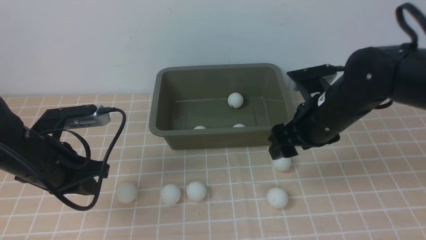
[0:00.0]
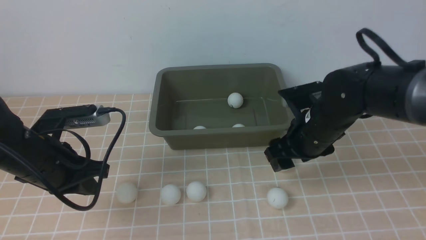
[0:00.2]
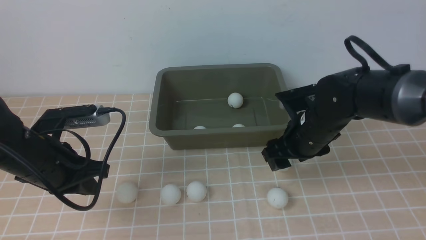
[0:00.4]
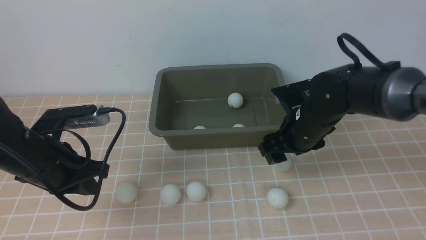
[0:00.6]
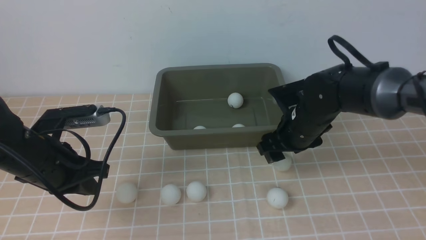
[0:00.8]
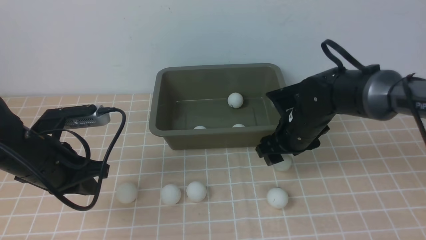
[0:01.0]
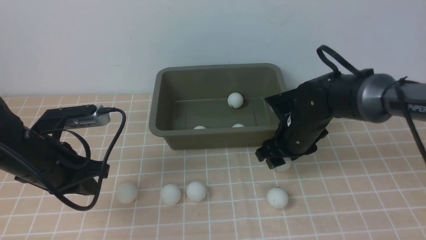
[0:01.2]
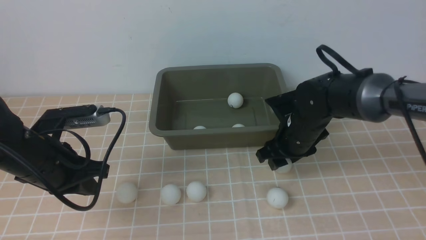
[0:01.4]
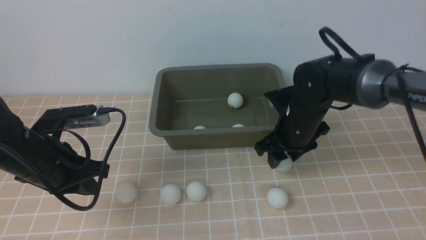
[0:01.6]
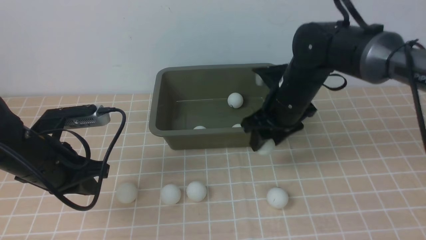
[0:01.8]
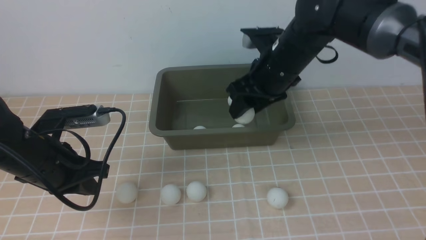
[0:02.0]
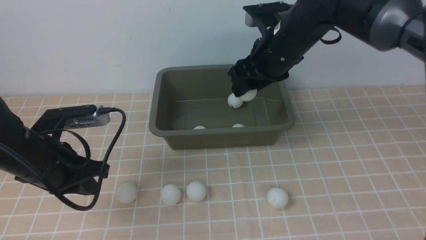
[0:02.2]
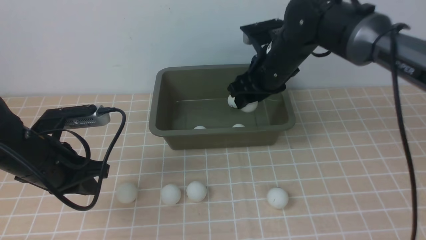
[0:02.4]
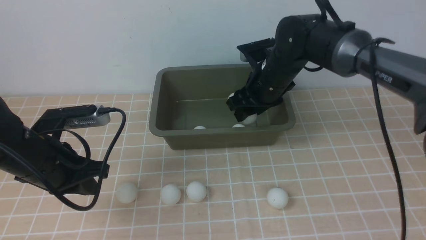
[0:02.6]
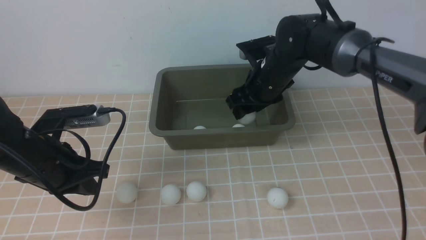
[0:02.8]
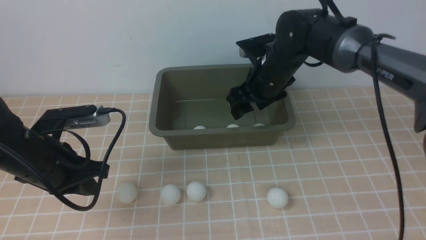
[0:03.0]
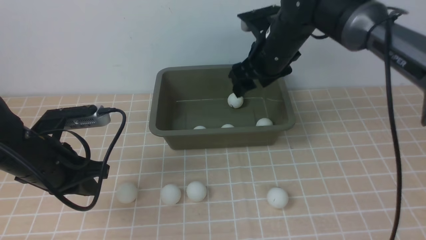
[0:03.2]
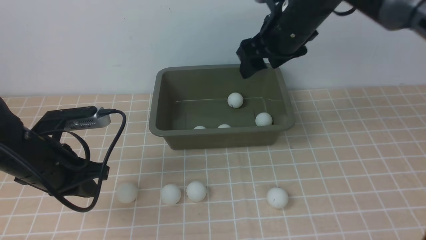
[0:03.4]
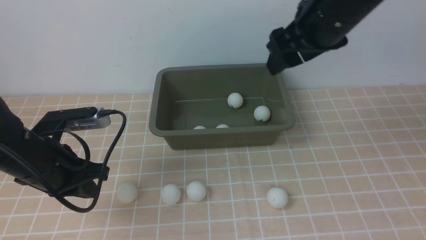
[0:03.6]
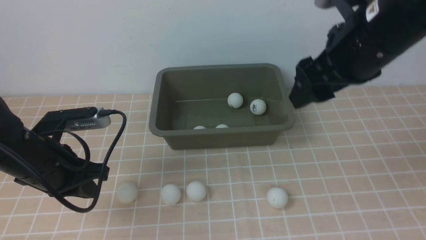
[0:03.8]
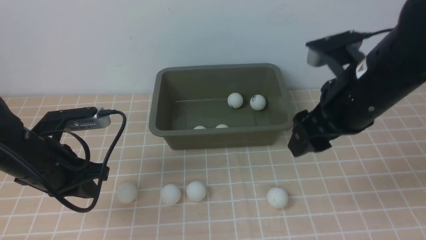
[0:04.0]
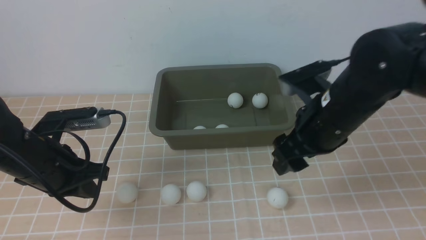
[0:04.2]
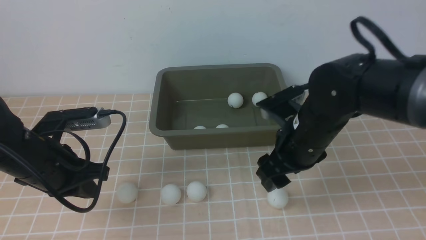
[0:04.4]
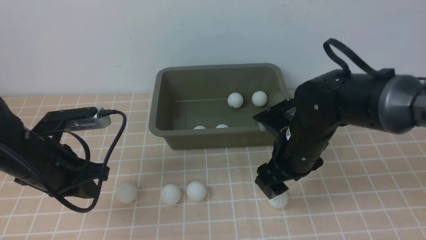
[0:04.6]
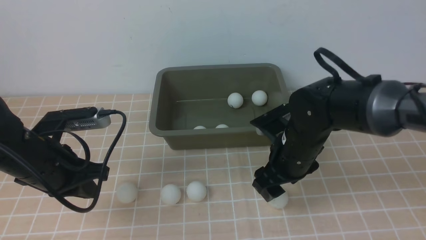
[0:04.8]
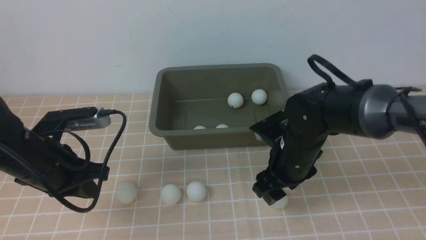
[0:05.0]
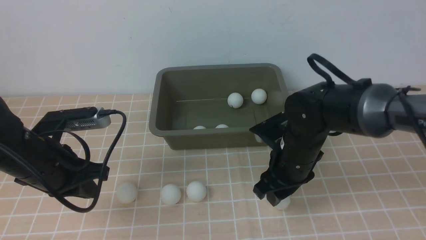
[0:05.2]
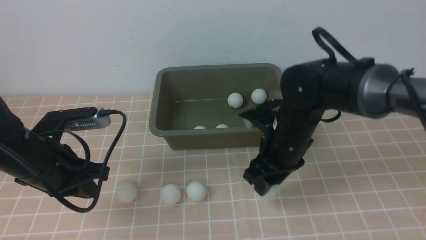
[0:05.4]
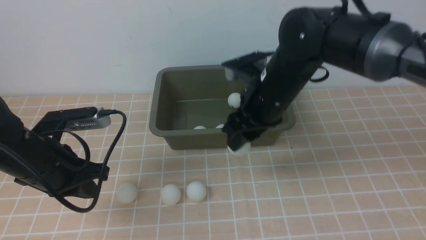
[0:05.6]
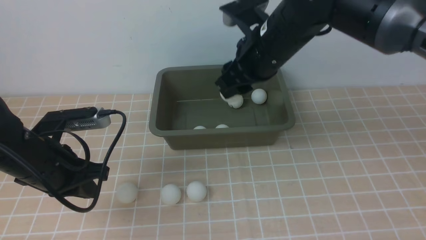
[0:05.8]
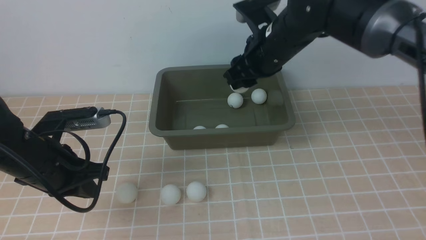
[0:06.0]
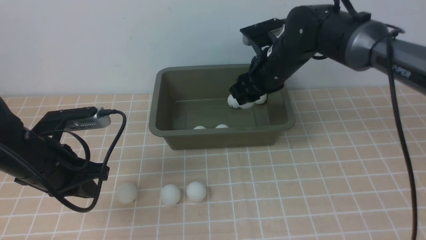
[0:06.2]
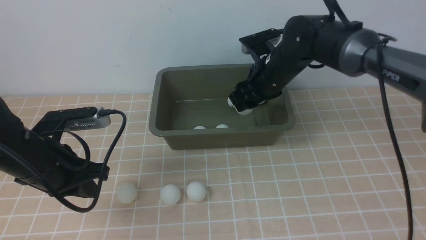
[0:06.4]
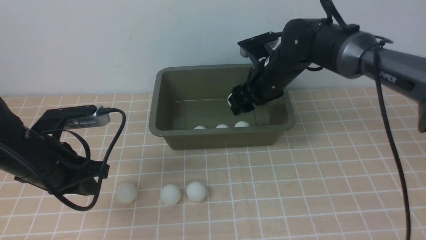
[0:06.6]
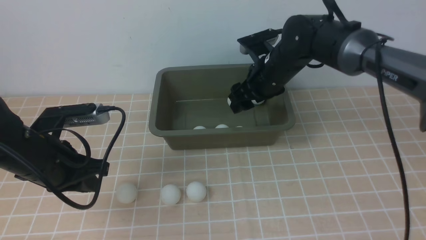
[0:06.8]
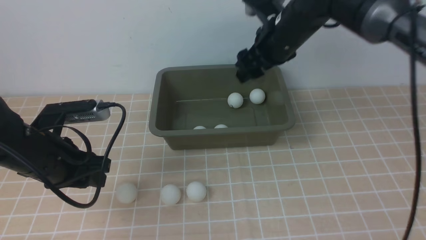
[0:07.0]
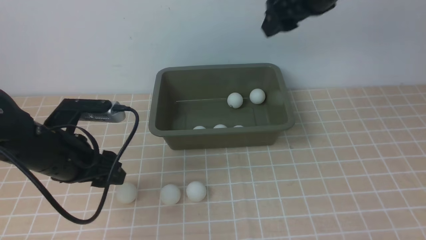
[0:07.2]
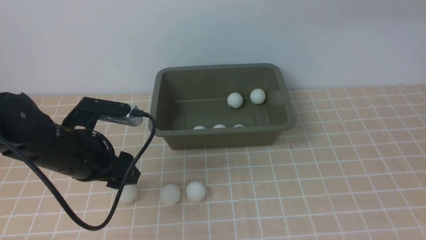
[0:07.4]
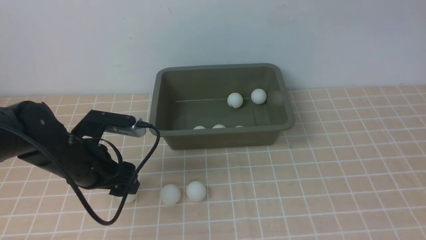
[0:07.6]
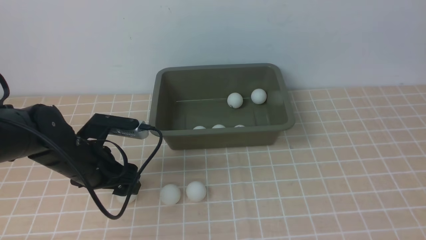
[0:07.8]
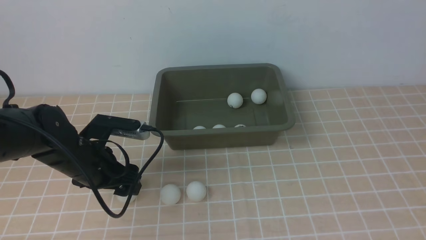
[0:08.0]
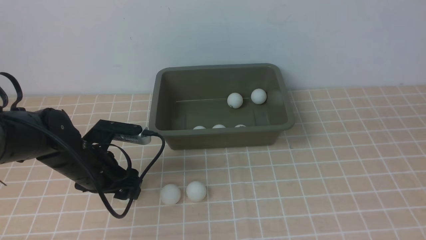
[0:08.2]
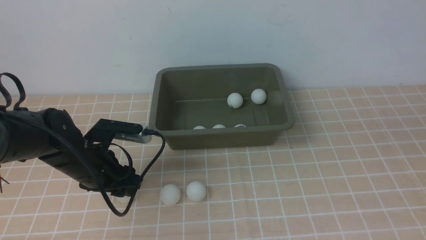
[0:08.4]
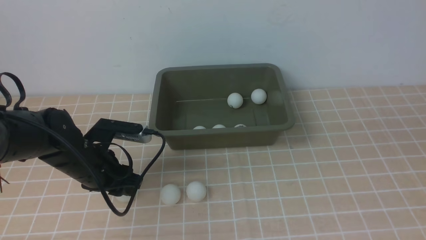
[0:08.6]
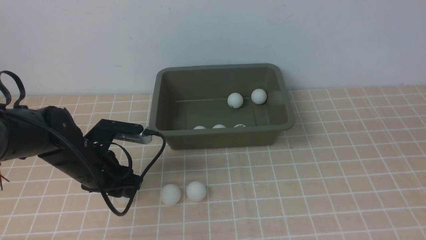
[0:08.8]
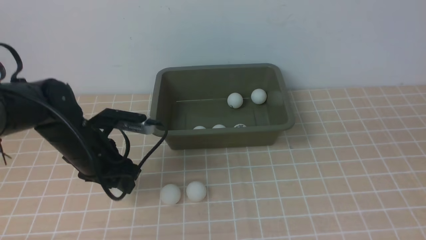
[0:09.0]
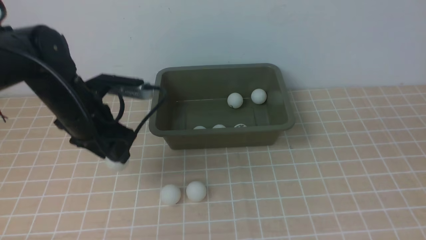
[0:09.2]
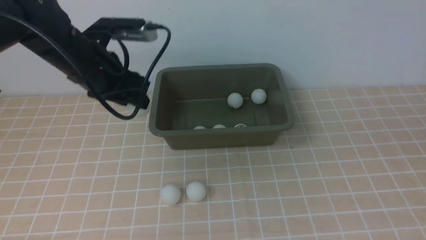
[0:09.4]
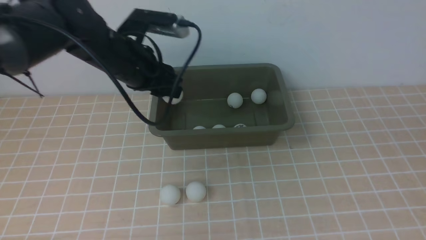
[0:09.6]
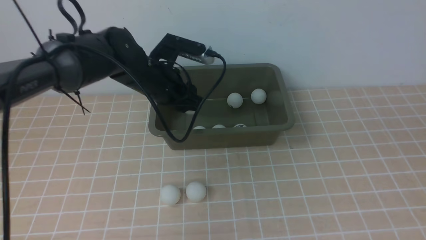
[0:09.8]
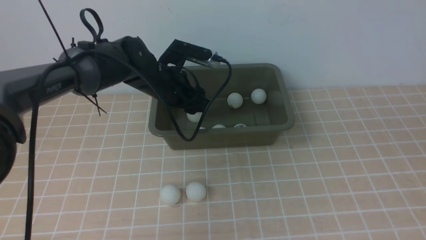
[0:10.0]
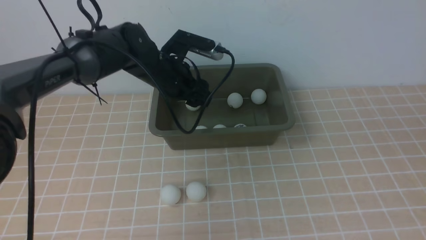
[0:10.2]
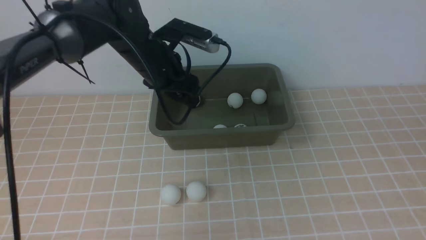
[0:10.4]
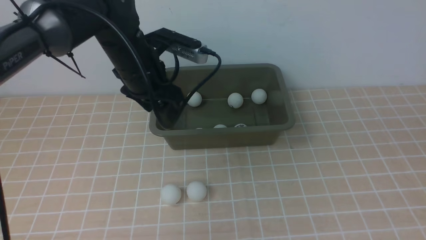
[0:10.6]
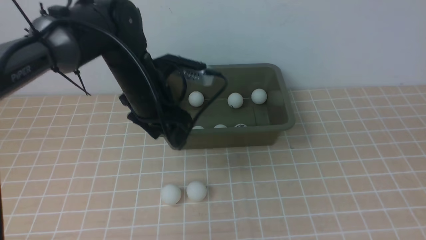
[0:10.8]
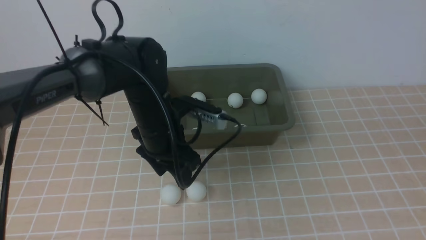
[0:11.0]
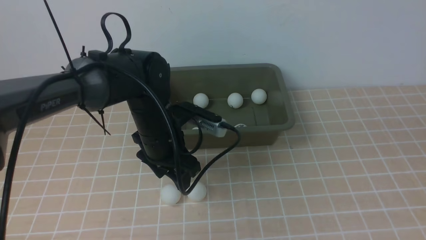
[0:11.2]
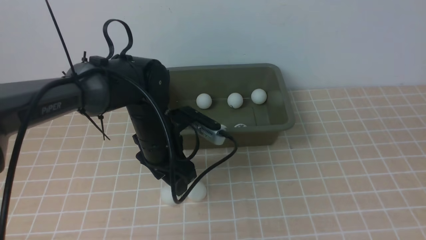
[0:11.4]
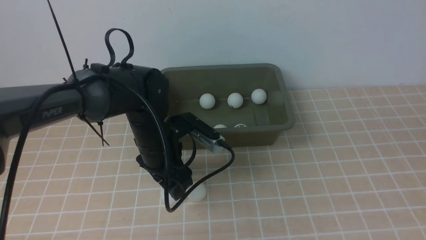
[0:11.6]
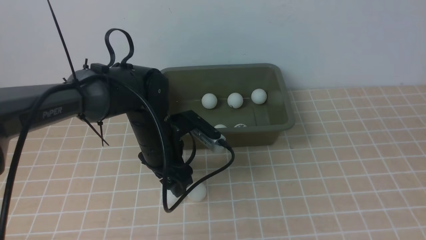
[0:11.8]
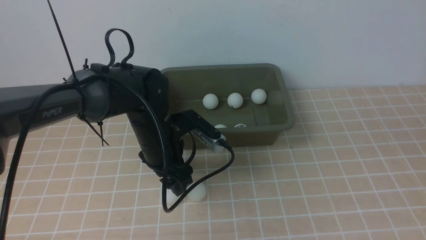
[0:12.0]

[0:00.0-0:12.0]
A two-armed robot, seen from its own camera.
Step, 0.0 to 1.6 s: use the right arm to clamp the table tennis ball closest to it.
Step, 1.8 to 3.2 s: use the right arm to put the table tennis ball into the box.
Step, 3.4 to 5.4 s: use the right arm to clamp the table tennis ball closest to it.
Step, 5.6 to 6.8 s: use the right arm to put the table tennis ball into the box.
Step, 7.2 to 9.2 s: use the left arm to clamp the table tennis ball closest to it.
Step, 9.4 to 10.4 s: use the left arm to put the table tennis ball into the box.
0.0 to 1.6 s: The right gripper is displaced downward by some 5 cm.
1.6 to 3.0 s: The right gripper is displaced forward and upward by some 10 cm.
3.0 to 4.4 s: The right gripper goes some 15 cm backward.
4.4 to 6.0 s: The right gripper shifts roughly 10 cm forward and upward, and closes its fingers.
6.0 to 7.6 s: The right gripper travels upward, to the right and backward by some 30 cm, while the left gripper opens up.
7.6 to 9.0 s: The left gripper closes up.
9.0 to 10.4 s: The left gripper shifts approximately 15 cm forward, to the right and upward.
10.4 to 12.0 s: The left gripper travels backward and downward by about 10 cm.

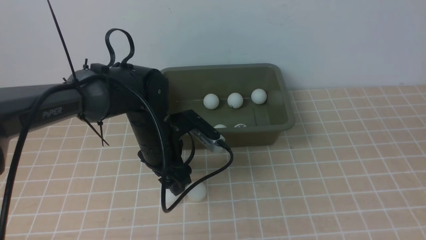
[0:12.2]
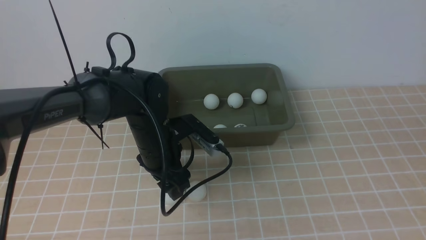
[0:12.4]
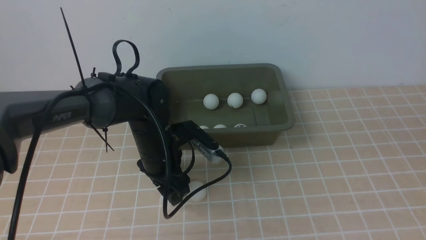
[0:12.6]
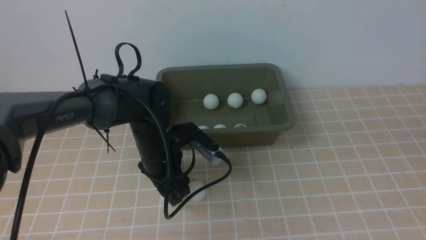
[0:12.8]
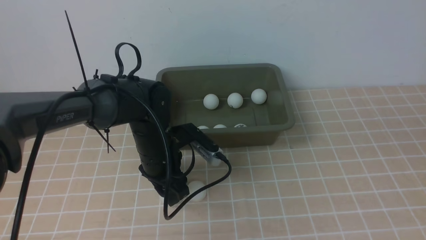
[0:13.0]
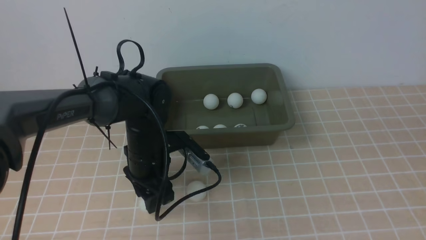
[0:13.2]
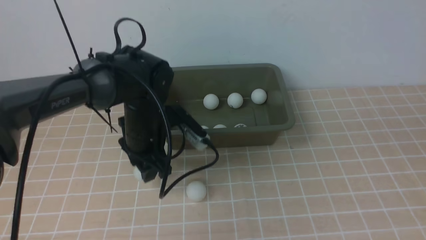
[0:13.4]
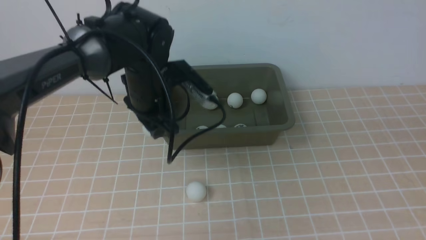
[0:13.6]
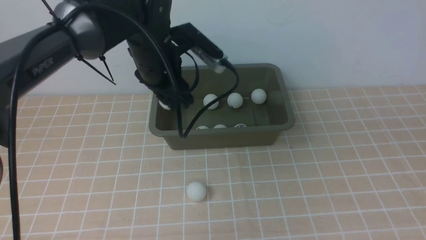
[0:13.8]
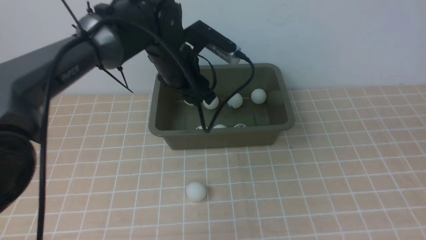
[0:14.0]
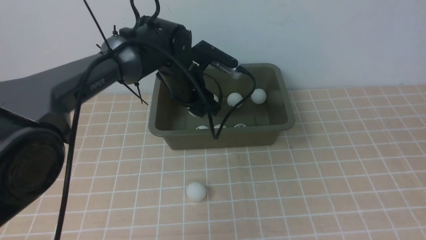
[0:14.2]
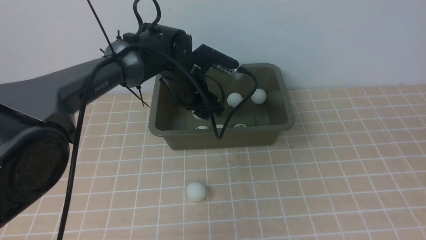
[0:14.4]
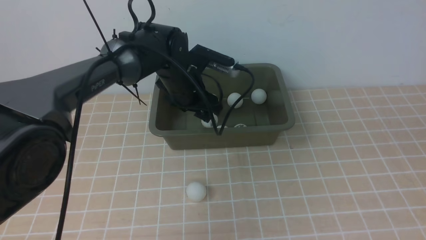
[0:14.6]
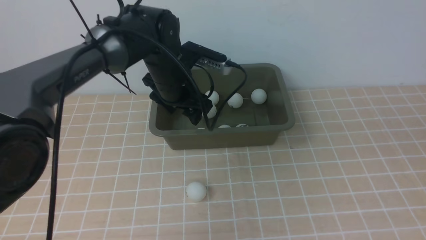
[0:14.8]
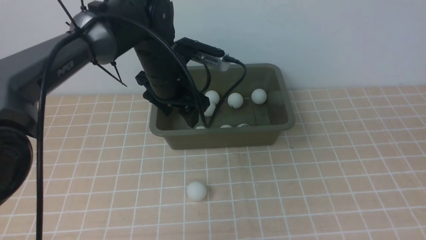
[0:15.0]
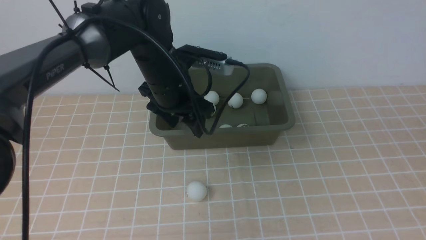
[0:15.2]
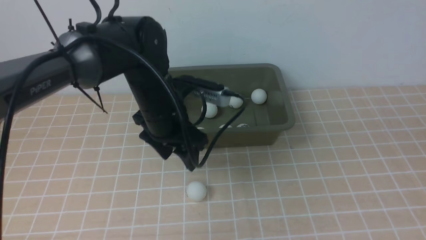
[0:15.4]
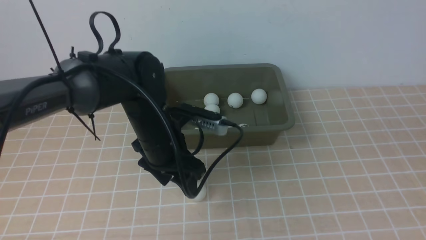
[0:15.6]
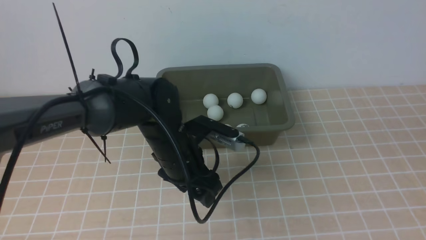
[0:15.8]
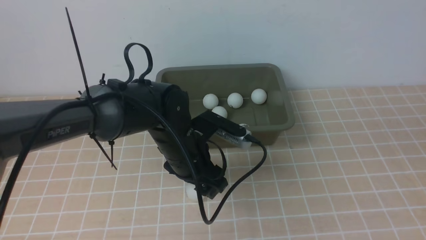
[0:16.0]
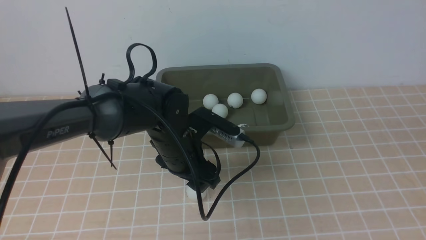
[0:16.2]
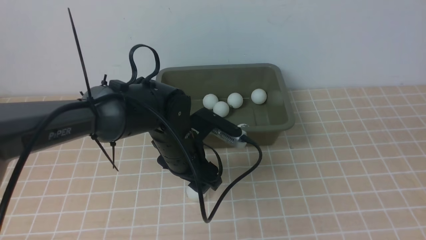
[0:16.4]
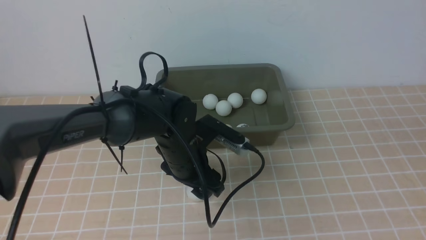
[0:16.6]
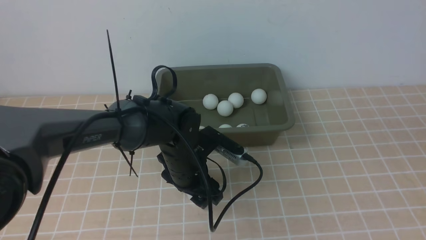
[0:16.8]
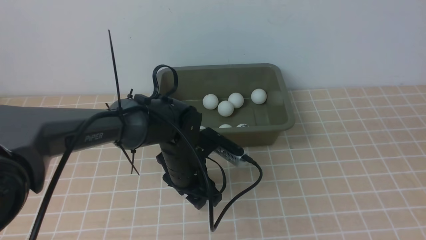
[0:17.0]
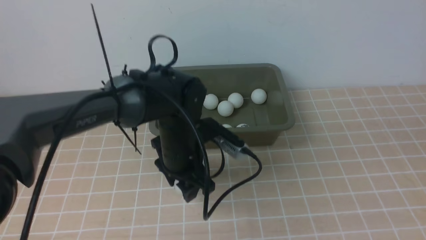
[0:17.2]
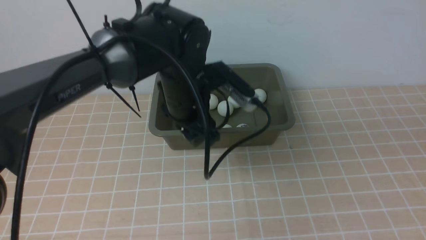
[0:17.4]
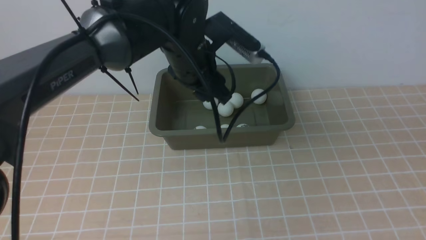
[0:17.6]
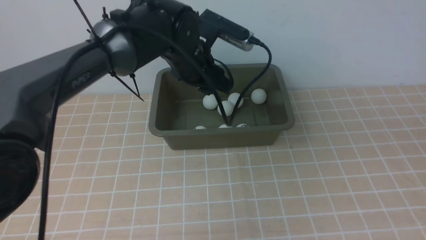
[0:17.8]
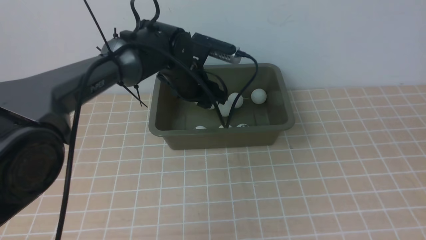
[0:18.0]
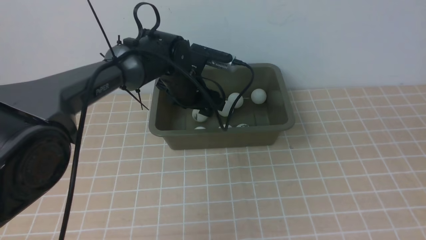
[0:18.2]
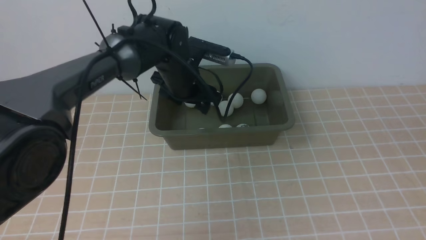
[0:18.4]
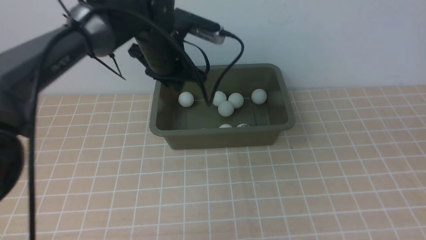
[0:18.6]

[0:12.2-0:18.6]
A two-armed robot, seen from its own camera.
Step, 13.4 to 14.8 s: use the left arm to put the table tennis ball into the box.
Step, 15.0 to 17.4 s: use the left arm to clamp the table tennis ball closest to it.
Step, 17.6 to 18.6 s: use the left arm to put the table tennis ball into the box.
12.2 to 13.8 s: The left gripper travels upward and forward by roughly 10 cm.
15.4 to 17.0 s: The left gripper shifts approximately 10 cm downward.
17.0 to 18.6 s: The left gripper moves up and down over about 15 cm, changing direction 2 times.
